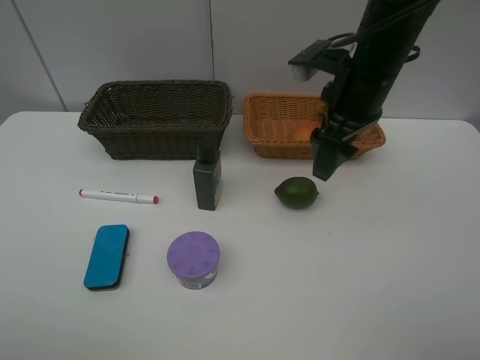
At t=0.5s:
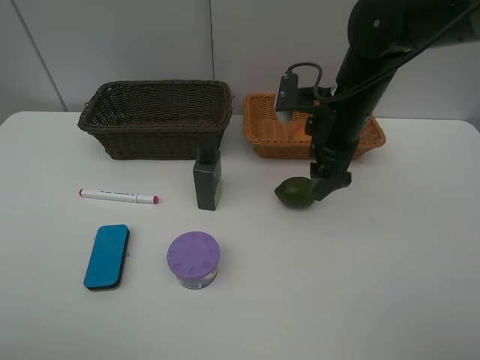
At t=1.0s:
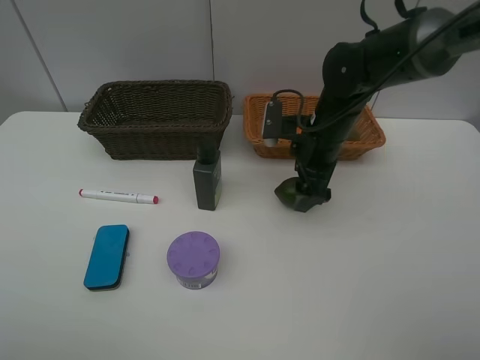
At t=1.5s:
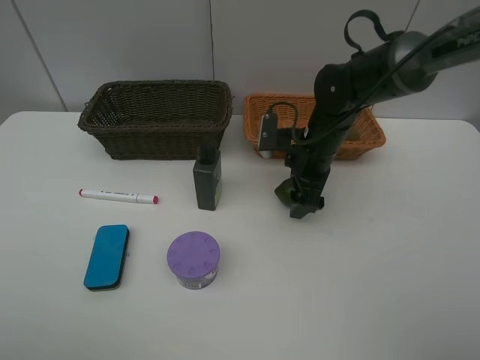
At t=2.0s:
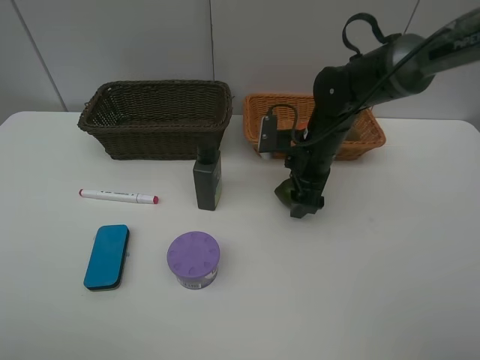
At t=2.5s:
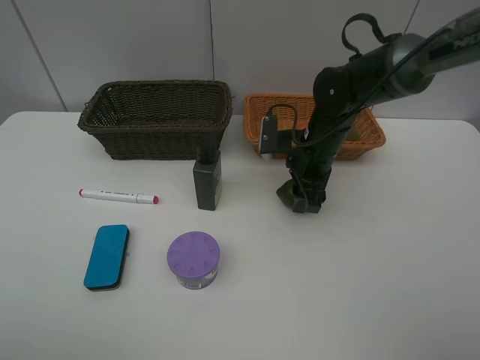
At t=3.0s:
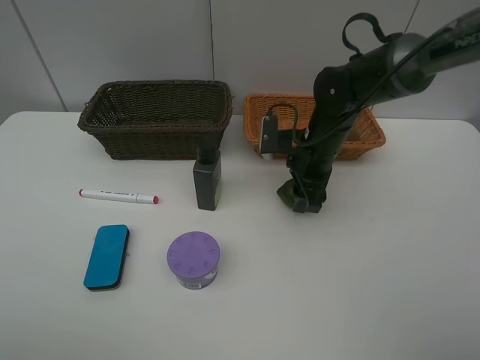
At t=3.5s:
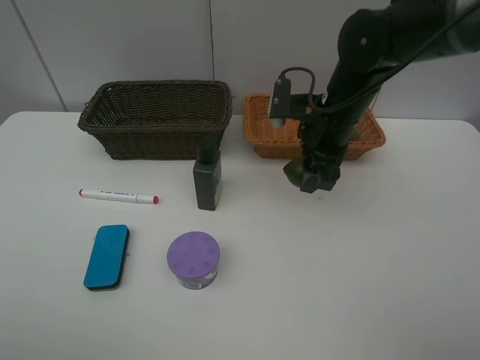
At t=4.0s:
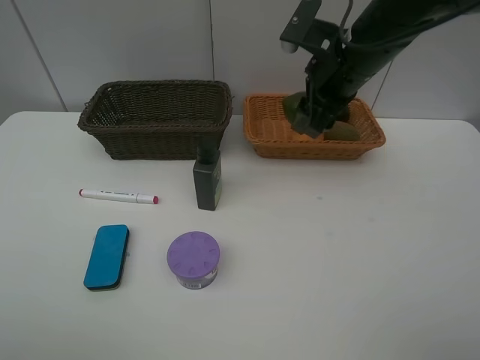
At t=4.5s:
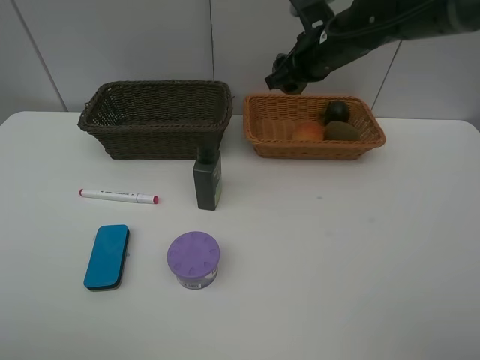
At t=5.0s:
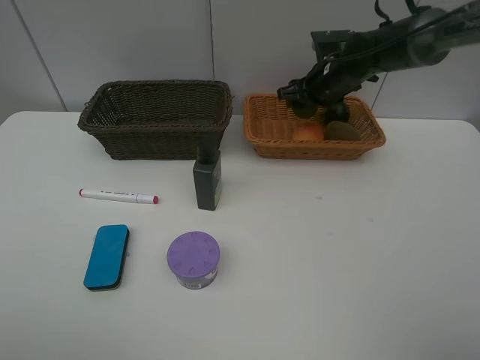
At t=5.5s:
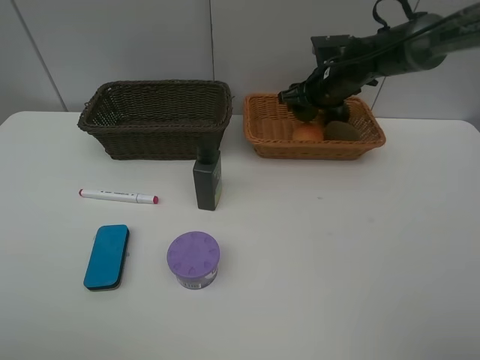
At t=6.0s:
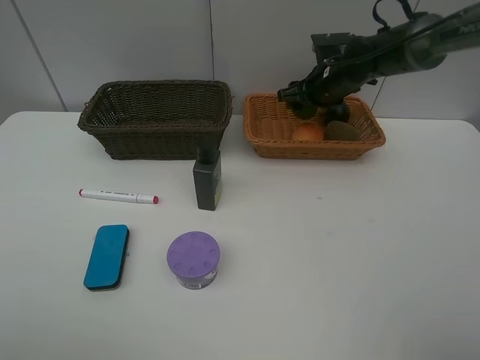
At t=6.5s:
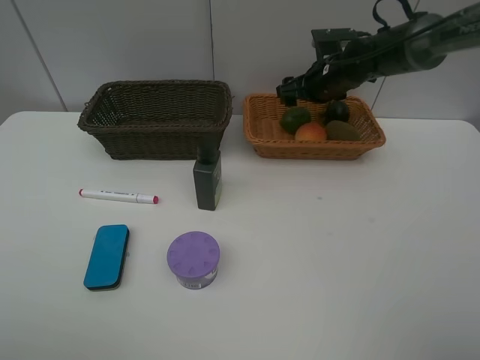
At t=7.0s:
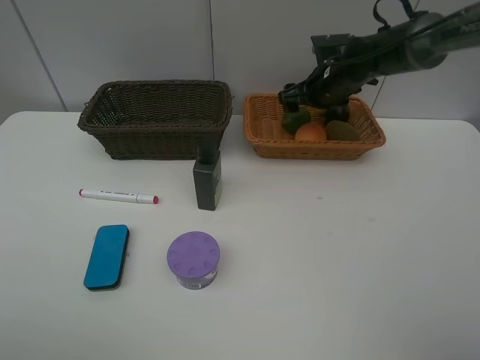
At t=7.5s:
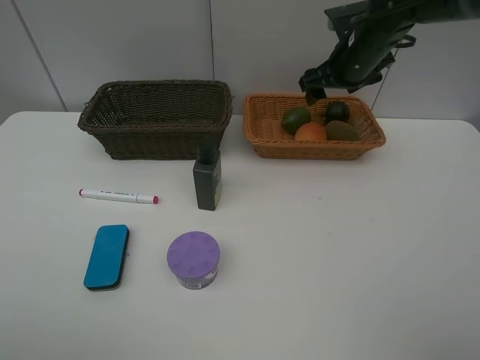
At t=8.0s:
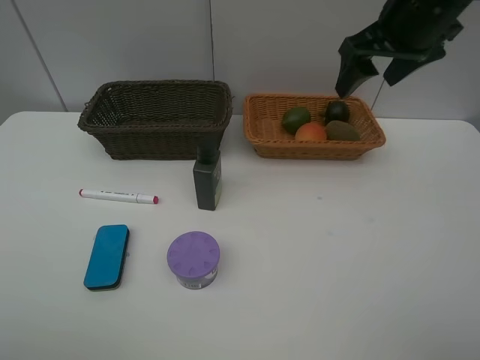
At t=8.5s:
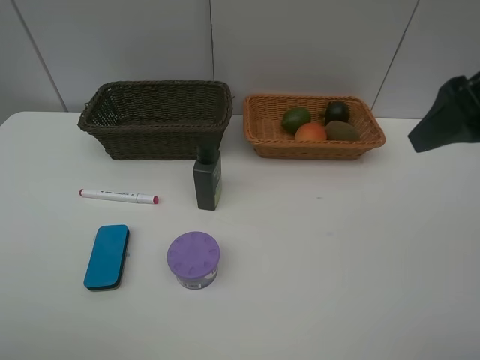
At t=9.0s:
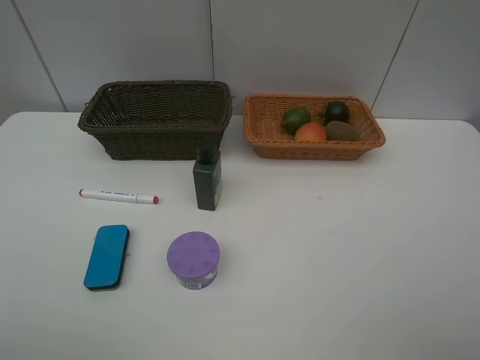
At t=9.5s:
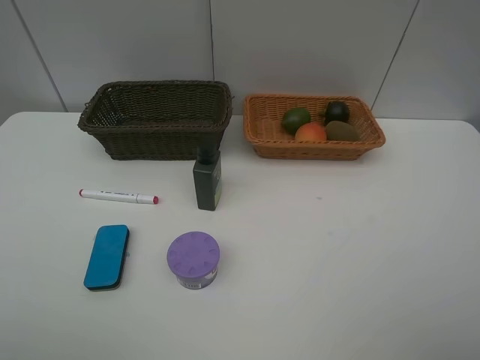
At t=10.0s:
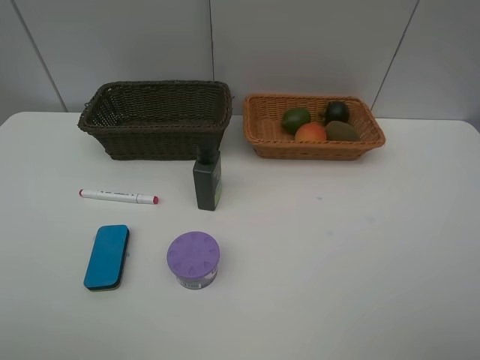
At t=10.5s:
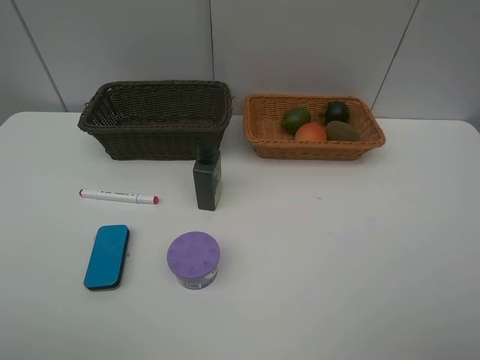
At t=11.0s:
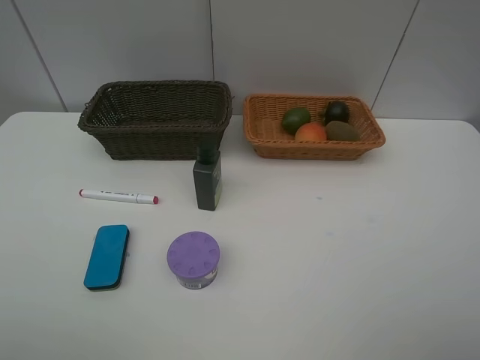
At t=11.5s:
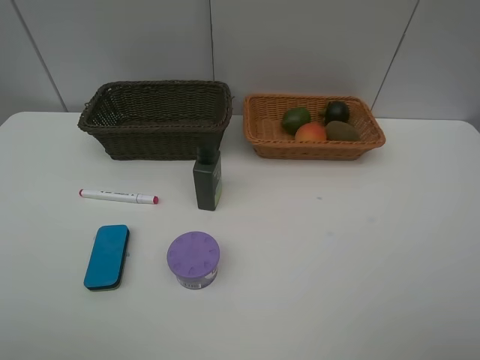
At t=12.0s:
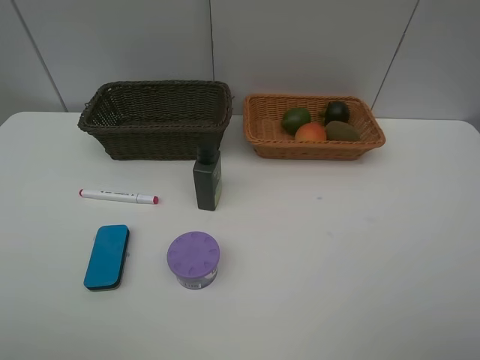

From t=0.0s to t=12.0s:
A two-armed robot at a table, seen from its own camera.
Task of the whole recording: Place multiple objects separately in different baskets.
Step, from t=0.0s to t=3.0s: Pick up the lime with right gripper.
Step, from t=3.5s to t=6.5s: Place the lime in the light basket with right gripper.
From t=0.0s to t=2.0s: The right gripper travels downward by about 15 cm.
From t=2.0s to t=4.0s: The right gripper heads upward, covering about 15 cm, and closes up.
From t=4.0s to t=6.0s: The right gripper moves forward and downward, about 15 cm.
From t=6.0s to t=8.0s: The right gripper is displaced upward and backward by approximately 25 cm, and opens its fingers.
From t=8.0s to t=10.0s: The right gripper travels backward by some 30 cm.

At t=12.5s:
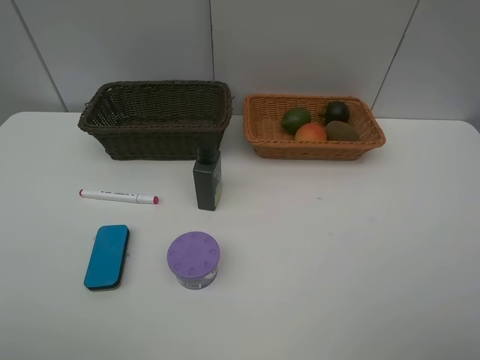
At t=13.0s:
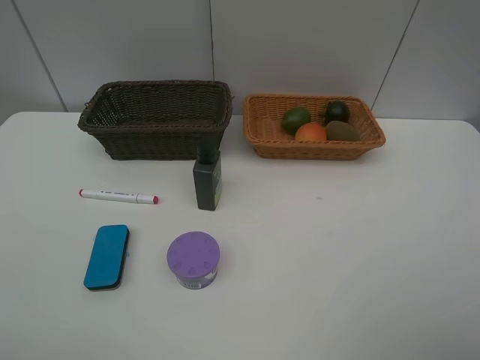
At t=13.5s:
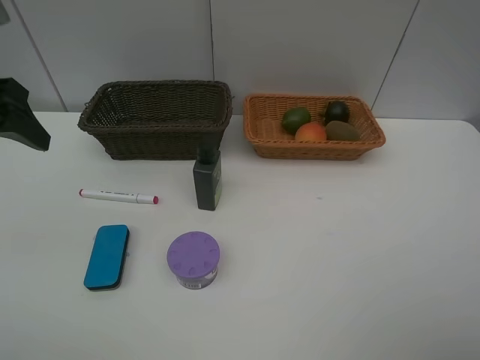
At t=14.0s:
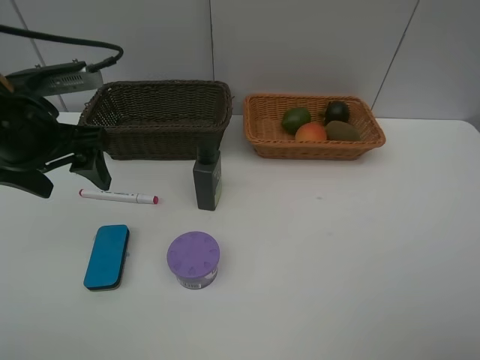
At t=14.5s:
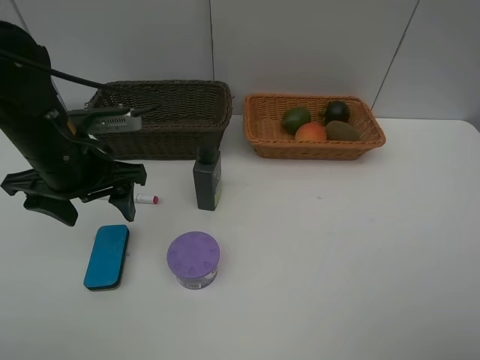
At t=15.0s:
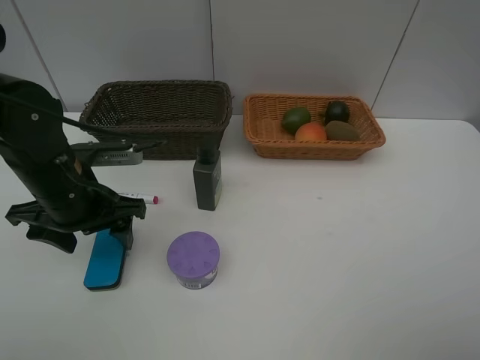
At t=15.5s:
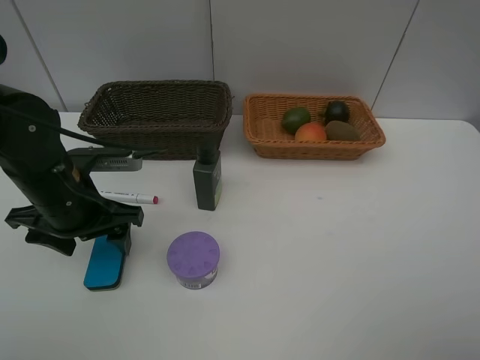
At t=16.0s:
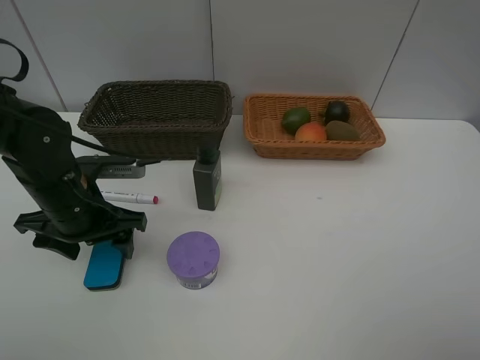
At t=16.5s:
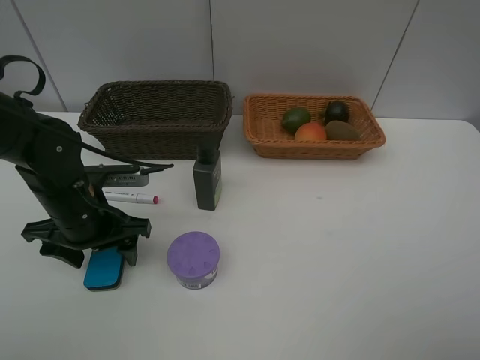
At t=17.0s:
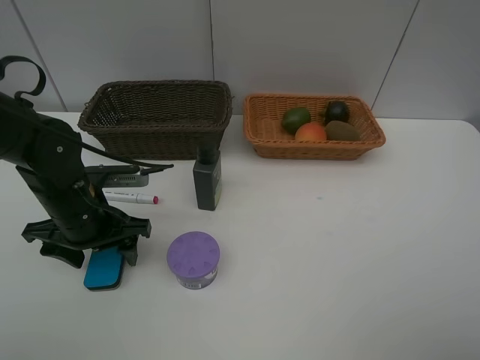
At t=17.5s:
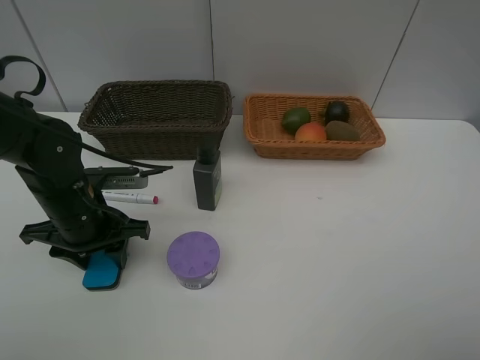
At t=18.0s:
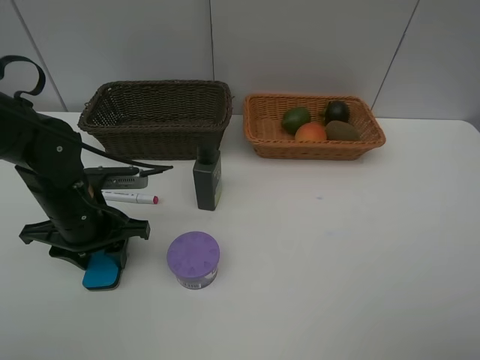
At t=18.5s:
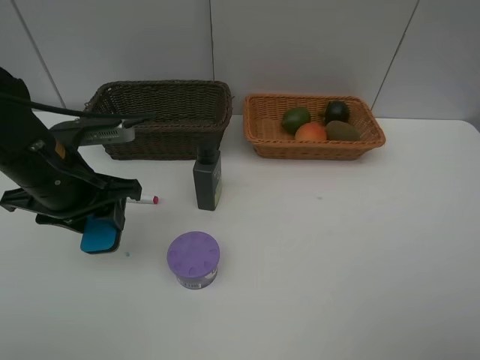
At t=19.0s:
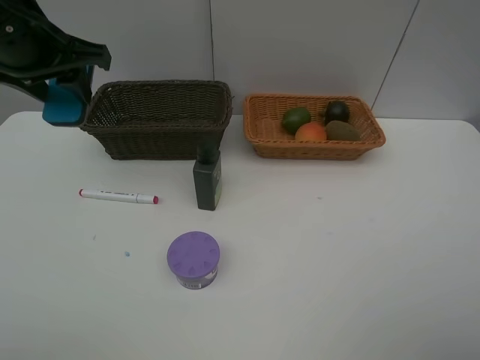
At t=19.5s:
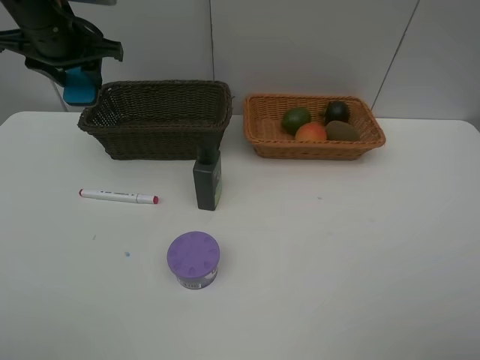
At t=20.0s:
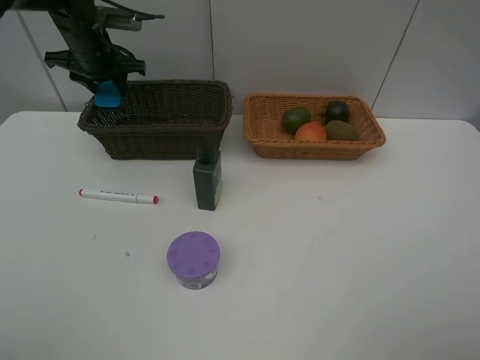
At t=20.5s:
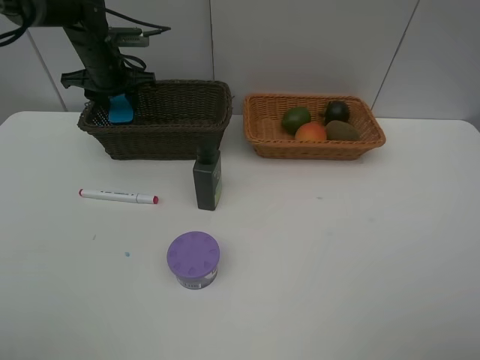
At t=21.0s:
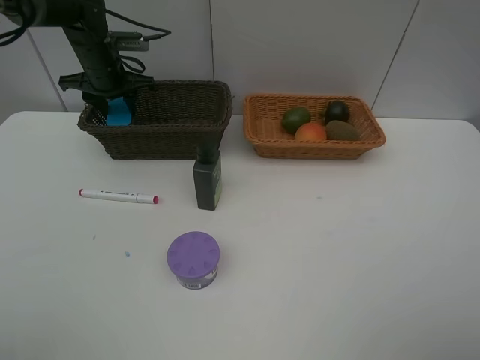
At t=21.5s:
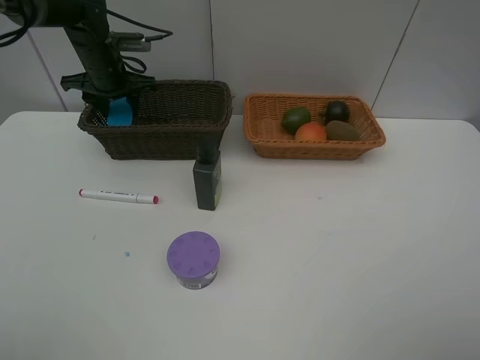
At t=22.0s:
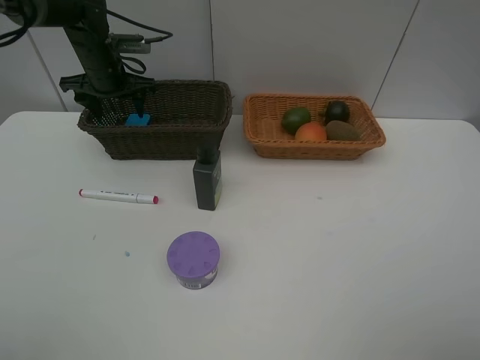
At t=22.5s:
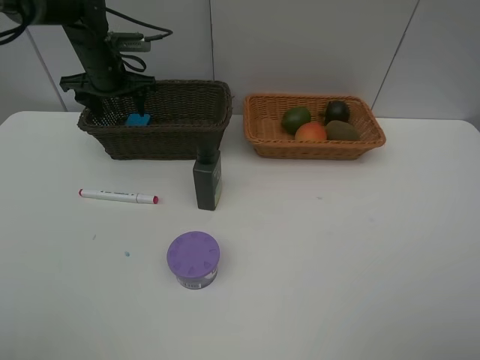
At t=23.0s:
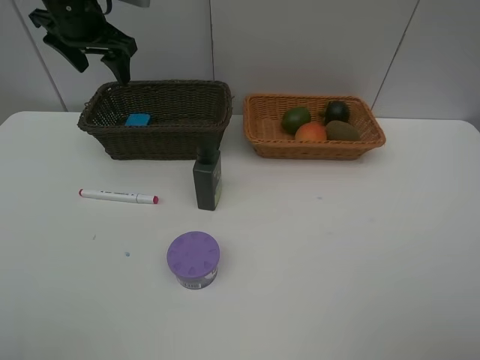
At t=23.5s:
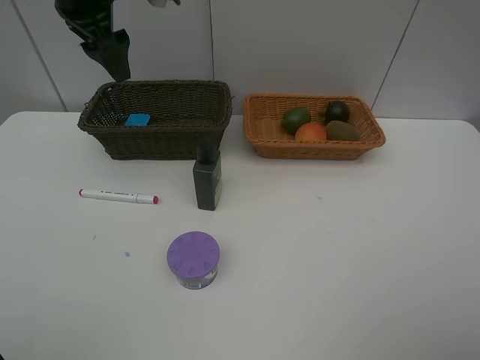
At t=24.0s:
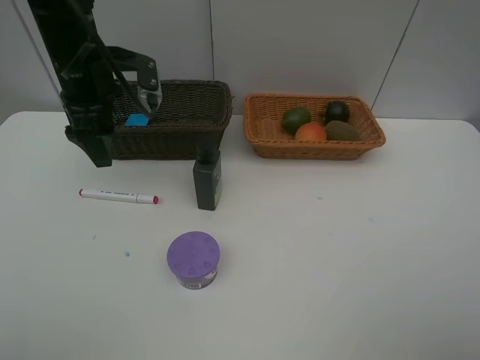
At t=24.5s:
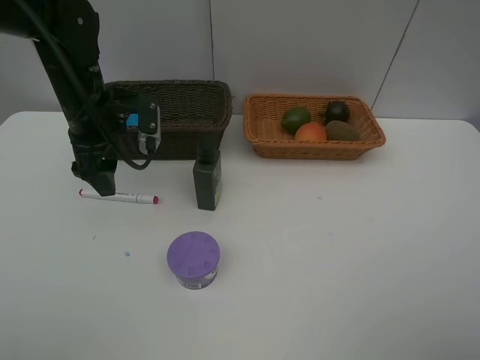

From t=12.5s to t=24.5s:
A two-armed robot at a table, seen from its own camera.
Task of the whole recording: Place multiple objects separately in different baskets.
Step, from t=12.5s to t=18.0s: Pick up blackboard eraser with left gripper.
Step, from t=18.5s to t=22.5s: Place the blackboard eraser in the dark basket with left gripper.
From t=12.5s to t=14.5s: The left gripper is displaced forward, downward and to the right by some 30 cm.
From t=14.5s to t=16.5s: The left gripper moves downward, some 10 cm.
From t=16.5s to t=18.5s: The left gripper heads upward, covering roughly 10 cm, and closes up.
From t=18.5s to t=20.5s: The left gripper shifts approximately 25 cm forward.
From t=20.5s to t=22.5s: The left gripper opens its fingers.
From t=22.5s to t=24.5s: The left gripper shifts approximately 15 cm backward.

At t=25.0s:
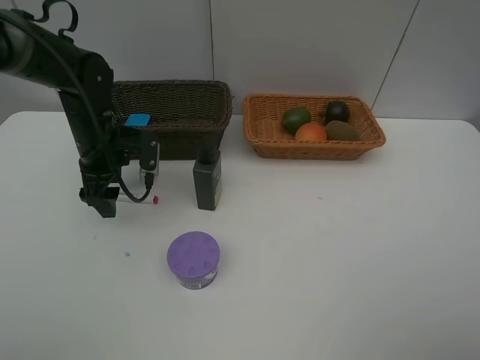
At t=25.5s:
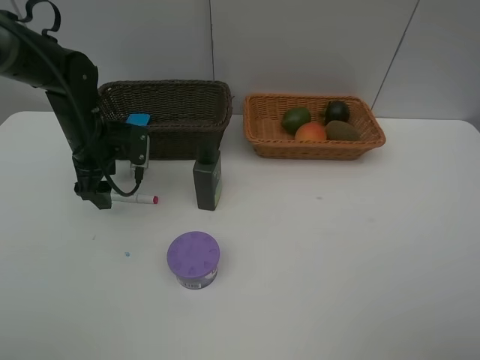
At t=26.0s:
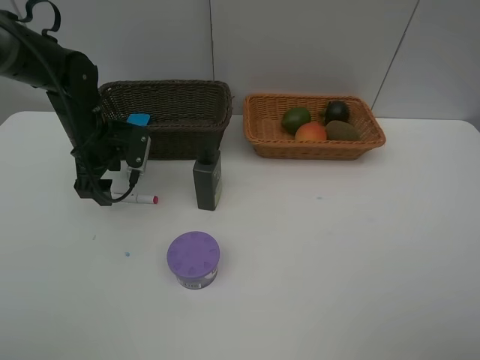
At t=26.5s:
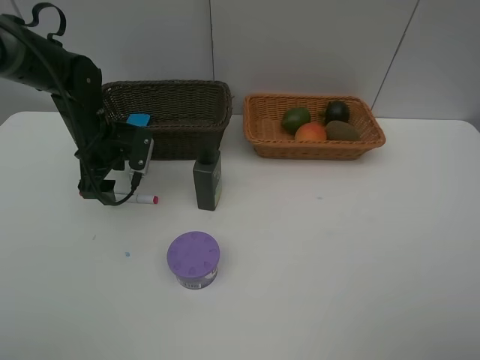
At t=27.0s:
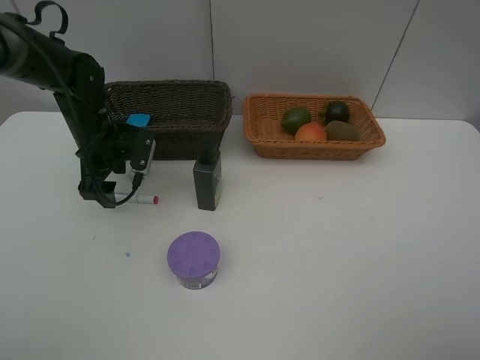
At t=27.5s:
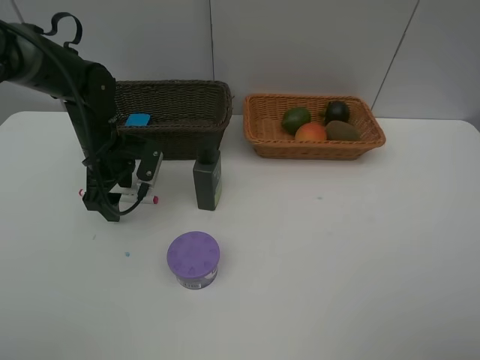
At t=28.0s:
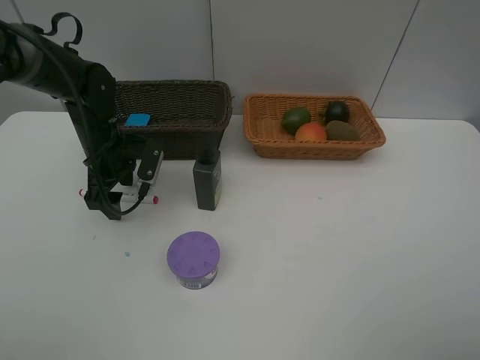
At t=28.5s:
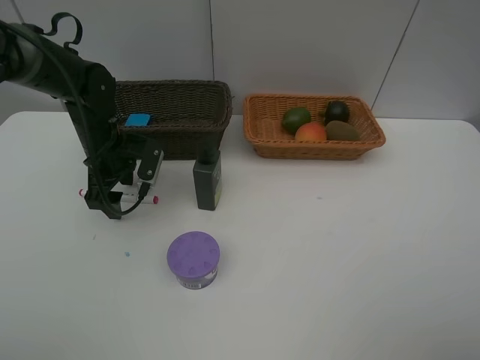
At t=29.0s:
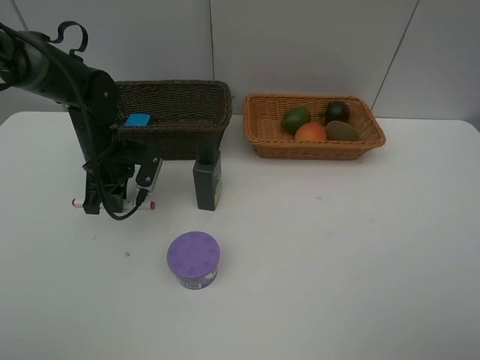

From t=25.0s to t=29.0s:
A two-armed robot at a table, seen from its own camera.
Task of the whole recording: Place multiple objects separately in different baskets.
From t=25.0s to t=27.0s: There are only small adjustments of the grippers.
From t=27.0s to t=29.0s: The left gripper closes.
